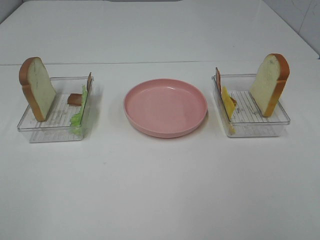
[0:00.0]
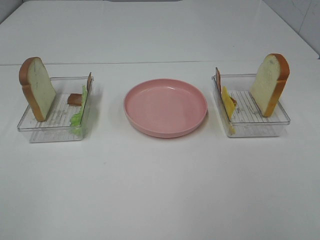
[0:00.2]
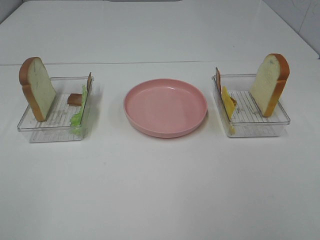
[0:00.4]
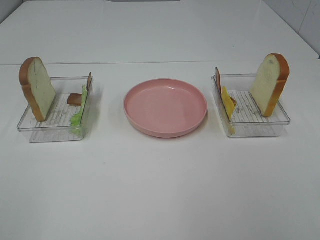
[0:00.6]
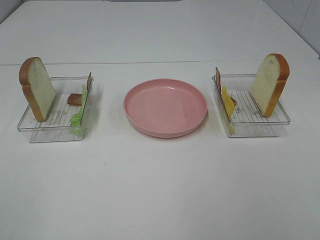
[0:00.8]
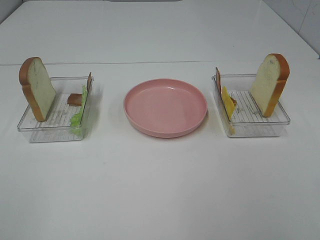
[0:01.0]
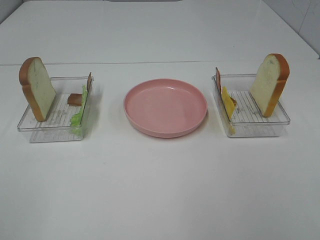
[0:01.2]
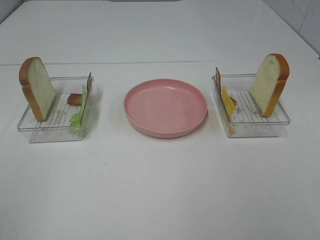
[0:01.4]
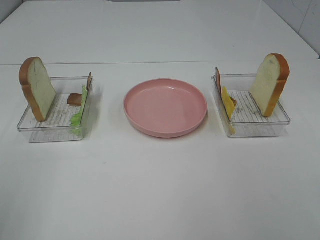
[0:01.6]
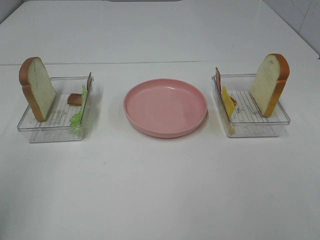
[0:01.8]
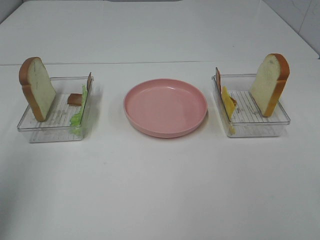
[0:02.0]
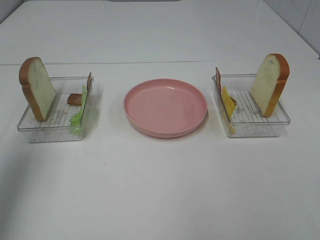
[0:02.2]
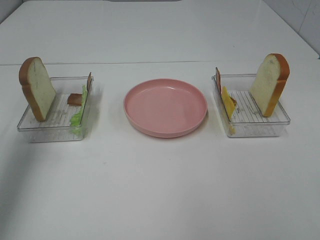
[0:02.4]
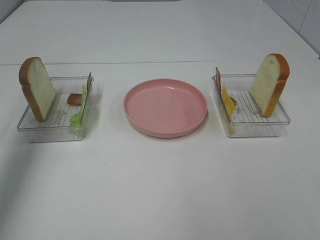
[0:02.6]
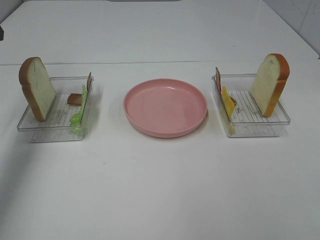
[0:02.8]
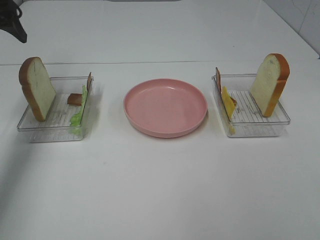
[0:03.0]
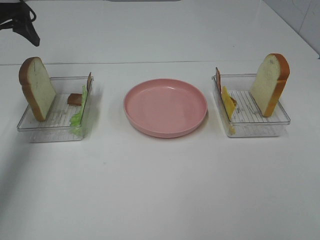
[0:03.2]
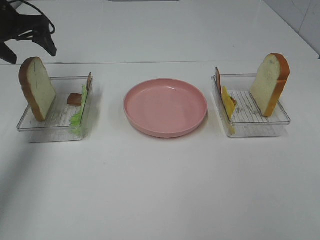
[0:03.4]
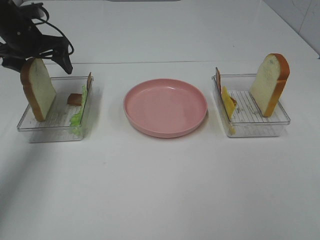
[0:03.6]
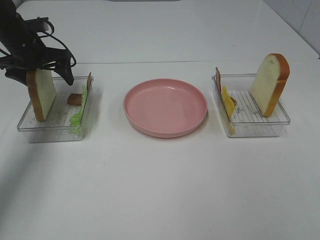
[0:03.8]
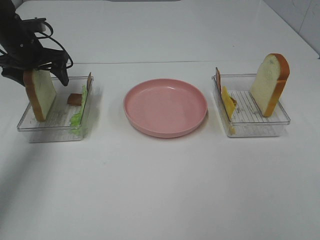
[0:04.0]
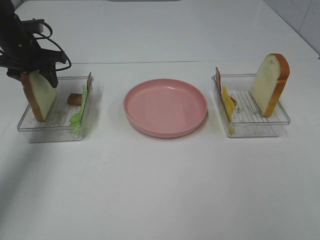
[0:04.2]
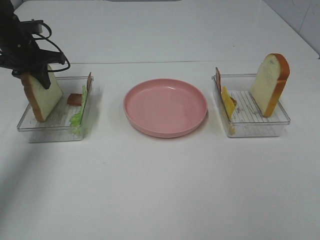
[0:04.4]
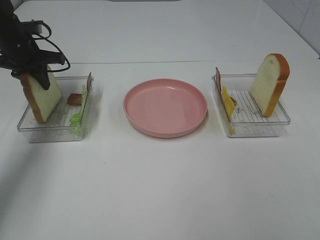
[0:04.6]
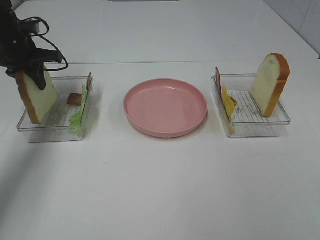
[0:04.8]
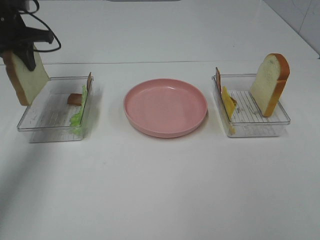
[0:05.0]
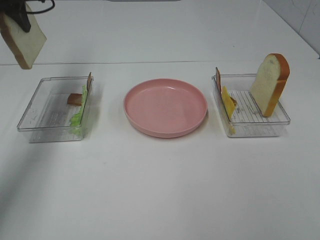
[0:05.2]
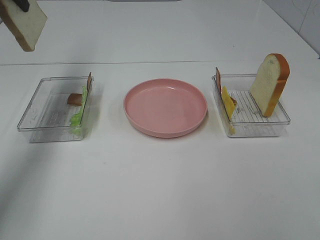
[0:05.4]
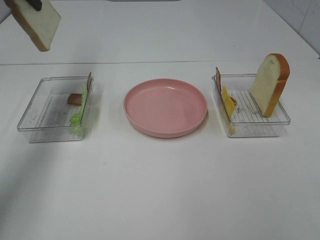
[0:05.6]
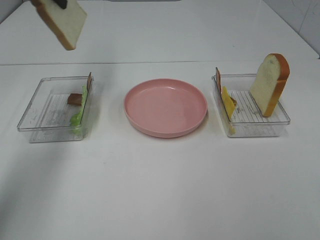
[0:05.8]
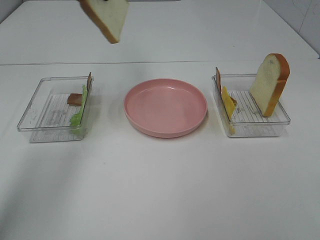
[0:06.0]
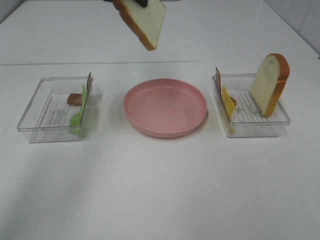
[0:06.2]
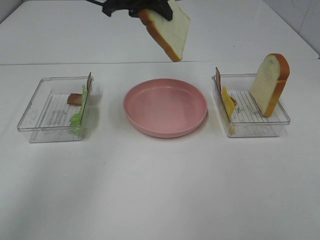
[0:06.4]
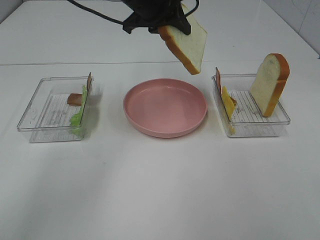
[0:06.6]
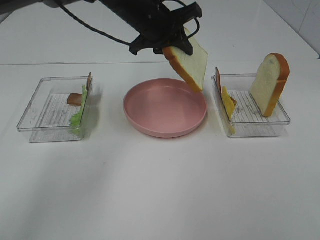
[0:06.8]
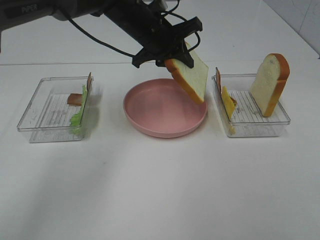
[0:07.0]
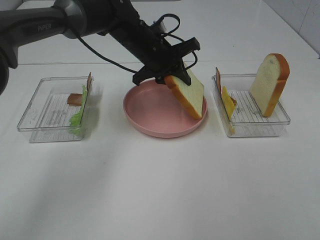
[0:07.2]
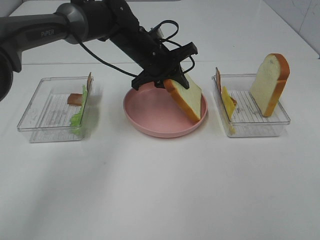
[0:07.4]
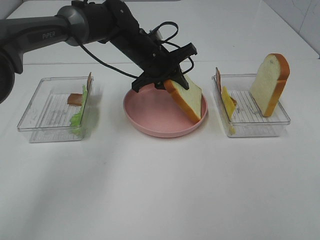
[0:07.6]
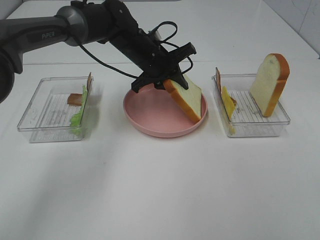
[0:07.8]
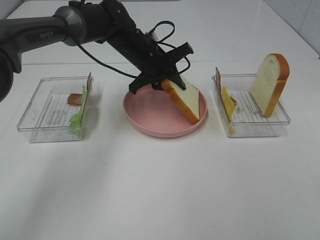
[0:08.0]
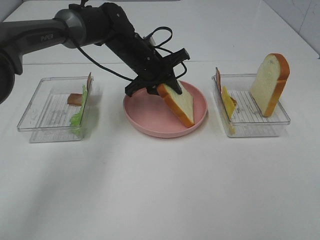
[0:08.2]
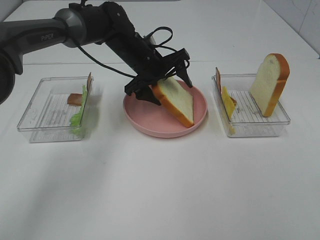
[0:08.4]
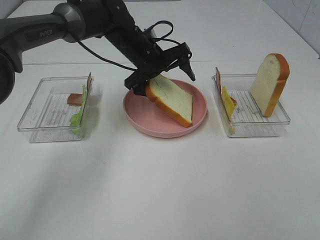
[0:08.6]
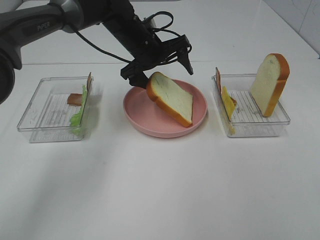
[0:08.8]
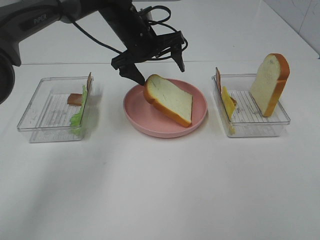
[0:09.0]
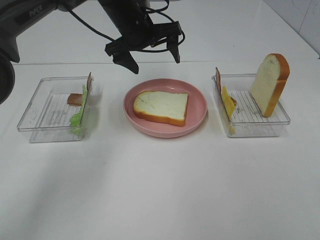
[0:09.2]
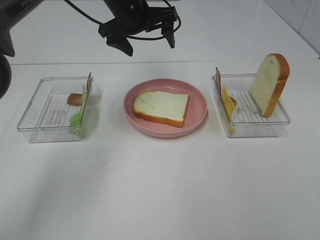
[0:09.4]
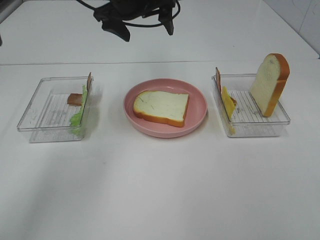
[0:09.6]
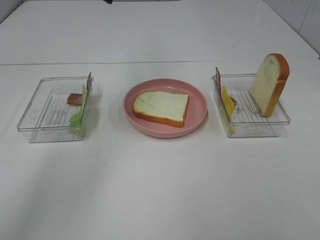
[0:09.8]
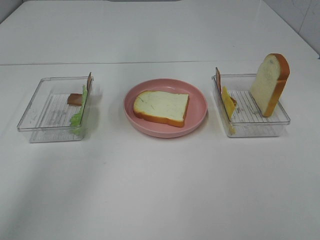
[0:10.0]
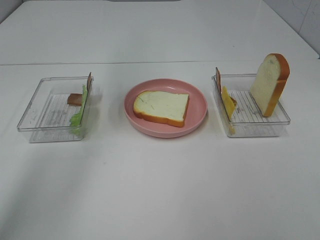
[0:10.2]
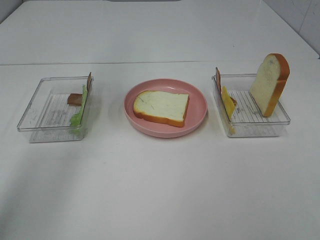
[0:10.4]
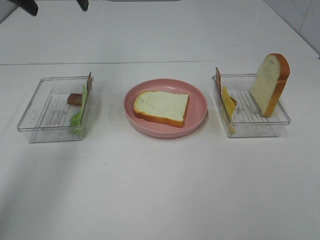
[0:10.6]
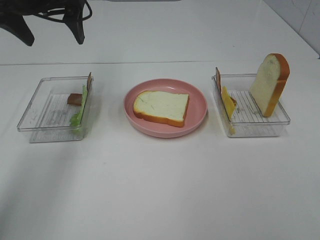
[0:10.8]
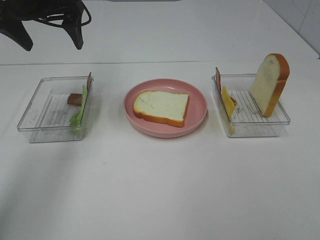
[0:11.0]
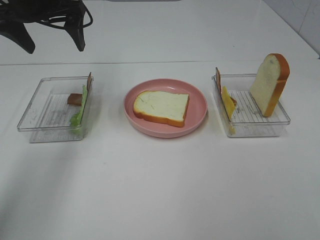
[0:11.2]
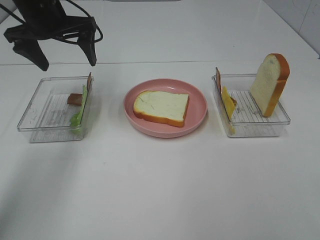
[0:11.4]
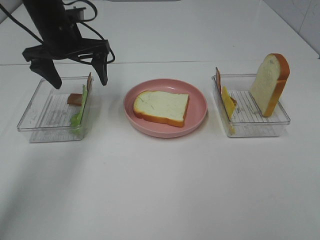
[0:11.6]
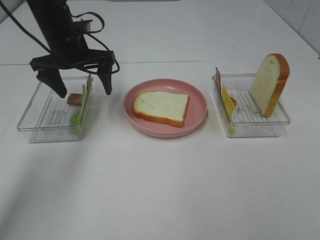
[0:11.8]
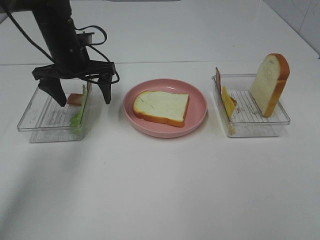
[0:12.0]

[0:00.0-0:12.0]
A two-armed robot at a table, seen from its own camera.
Task of the whole recording: Make sandwiches.
Step, 0:00.0 to 0:04.4: Left hand:grab the bread slice.
Step, 0:04.6 to 0:09.4: Left hand:place the bread slice on the plate.
0:01.6 to 0:03.0: The left gripper heads forward, covering approximately 35 cm.
0:03.0 to 0:04.4: The left gripper travels downward and forward by some 15 cm, and closes.
0:04.4 to 0:06.0: The left gripper shifts about 20 cm upward and to the right.
0:06.0 to 0:07.6: The left gripper shifts roughly 25 cm downward and to the right.
0:07.6 to 0:09.0: The left gripper moves roughly 5 cm, and opens its fingers.
0:09.0 to 0:10.4: The left gripper moves upward and to the left, some 25 cm.
0:10.4 to 0:12.0: The left gripper heads downward, covering some 20 cm.

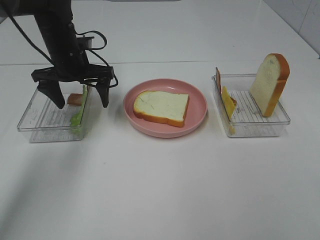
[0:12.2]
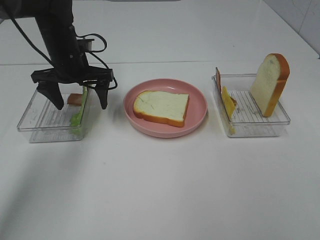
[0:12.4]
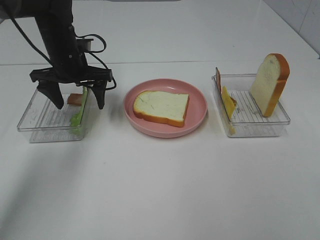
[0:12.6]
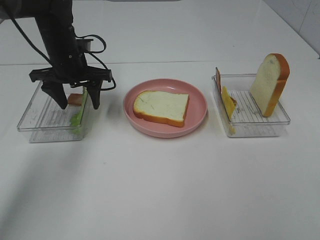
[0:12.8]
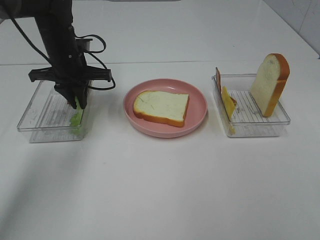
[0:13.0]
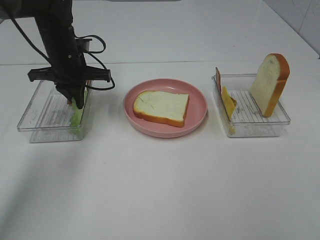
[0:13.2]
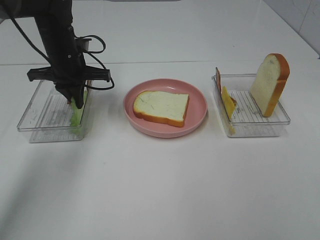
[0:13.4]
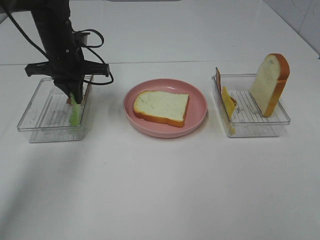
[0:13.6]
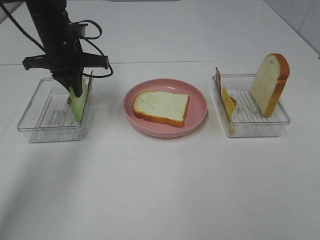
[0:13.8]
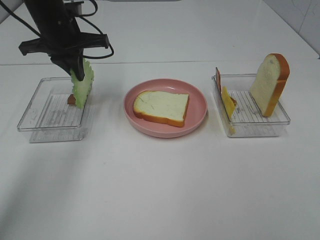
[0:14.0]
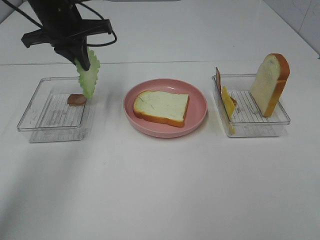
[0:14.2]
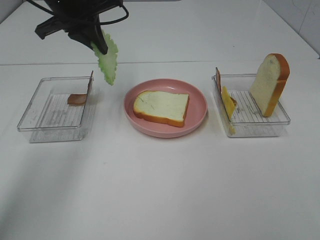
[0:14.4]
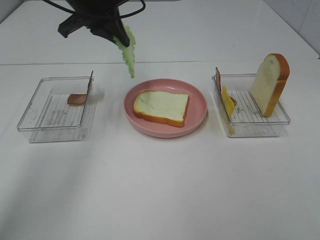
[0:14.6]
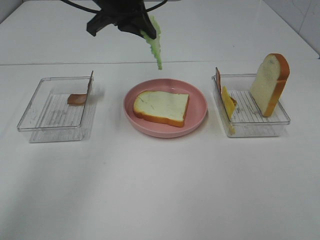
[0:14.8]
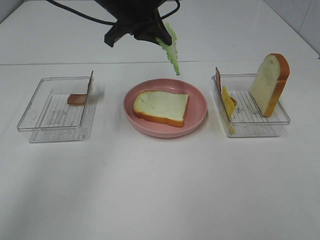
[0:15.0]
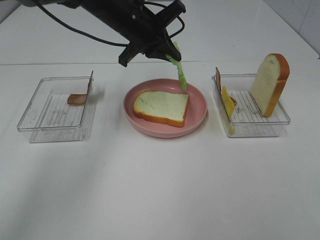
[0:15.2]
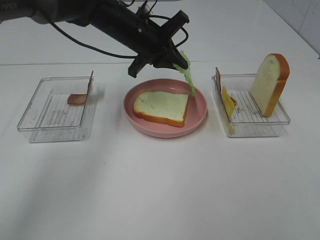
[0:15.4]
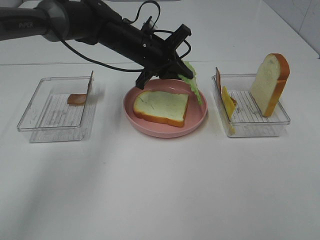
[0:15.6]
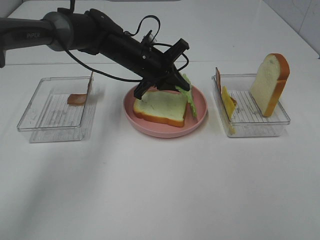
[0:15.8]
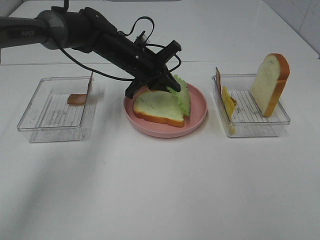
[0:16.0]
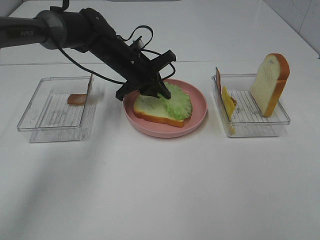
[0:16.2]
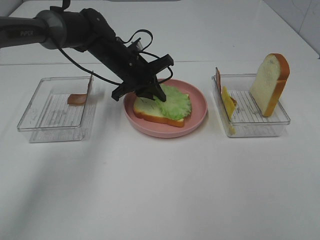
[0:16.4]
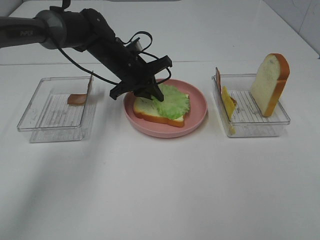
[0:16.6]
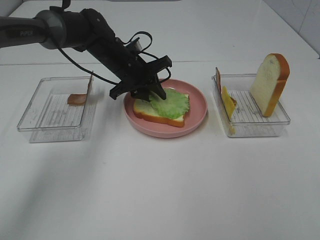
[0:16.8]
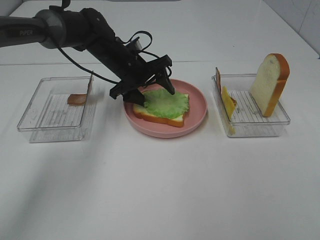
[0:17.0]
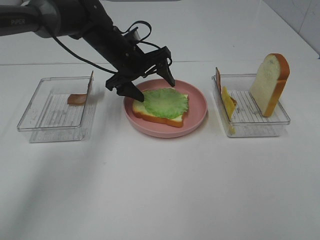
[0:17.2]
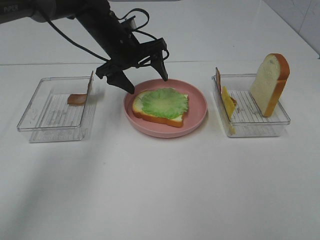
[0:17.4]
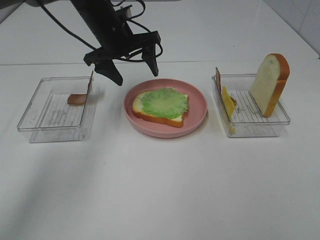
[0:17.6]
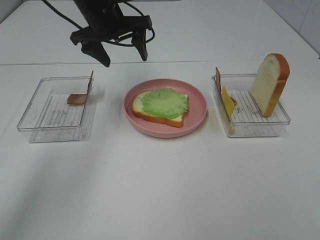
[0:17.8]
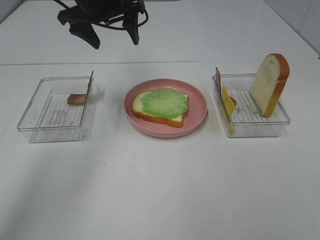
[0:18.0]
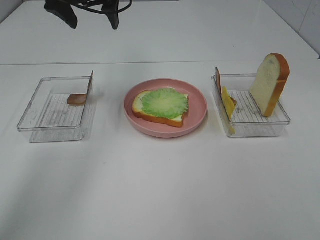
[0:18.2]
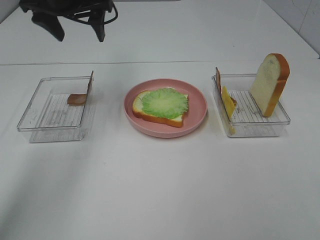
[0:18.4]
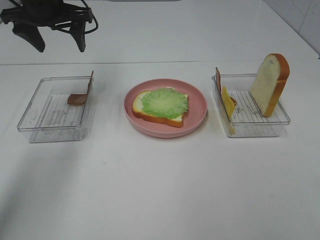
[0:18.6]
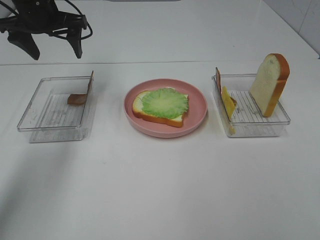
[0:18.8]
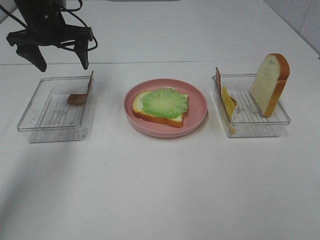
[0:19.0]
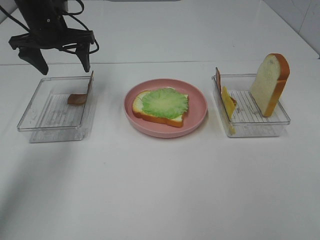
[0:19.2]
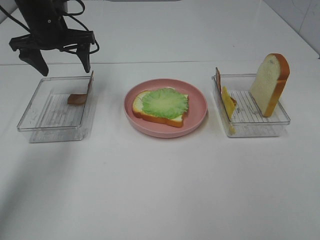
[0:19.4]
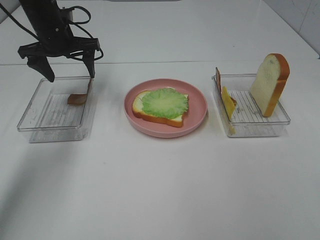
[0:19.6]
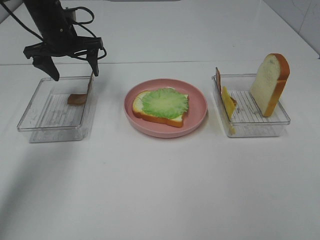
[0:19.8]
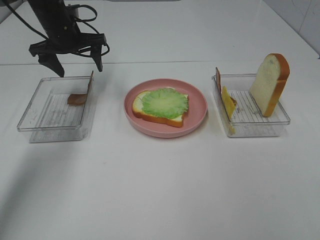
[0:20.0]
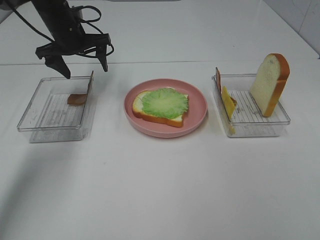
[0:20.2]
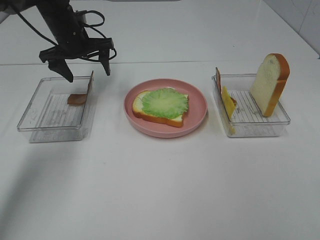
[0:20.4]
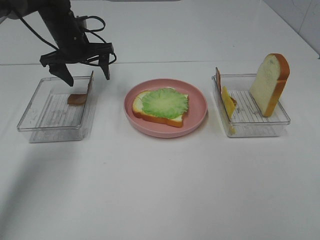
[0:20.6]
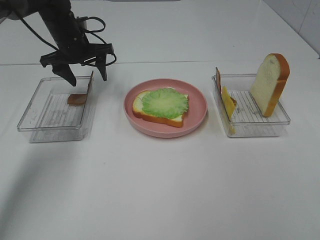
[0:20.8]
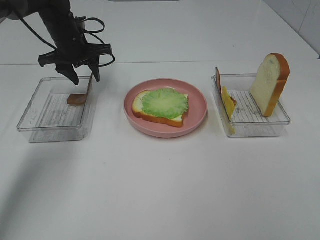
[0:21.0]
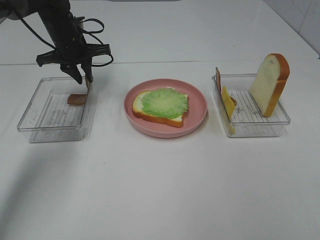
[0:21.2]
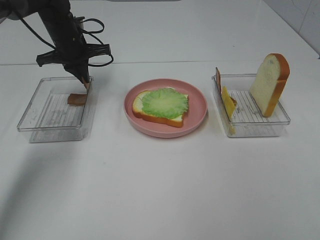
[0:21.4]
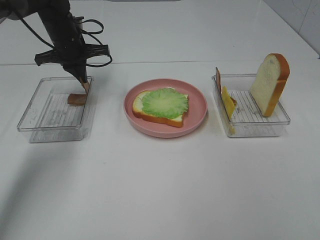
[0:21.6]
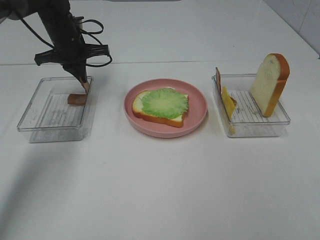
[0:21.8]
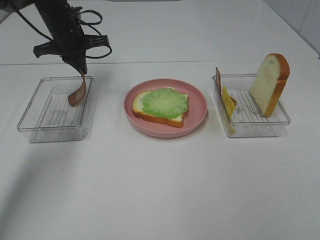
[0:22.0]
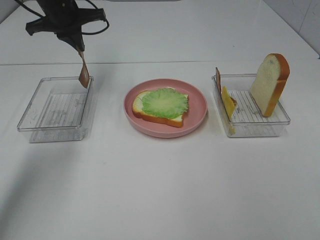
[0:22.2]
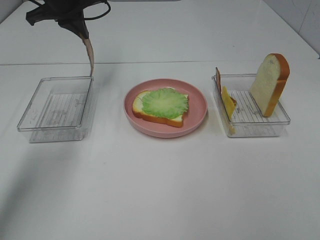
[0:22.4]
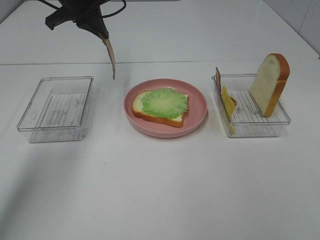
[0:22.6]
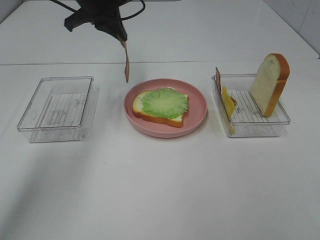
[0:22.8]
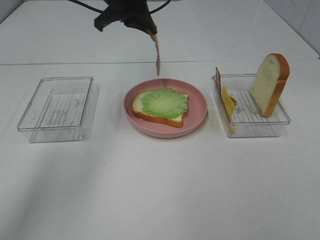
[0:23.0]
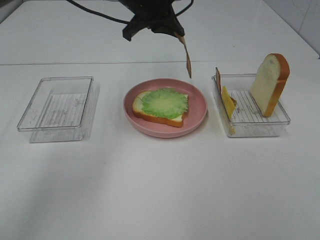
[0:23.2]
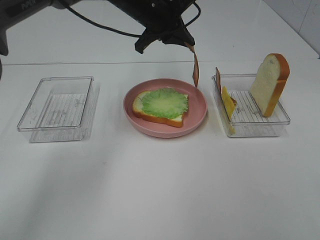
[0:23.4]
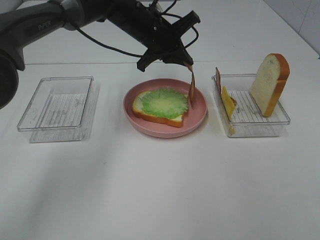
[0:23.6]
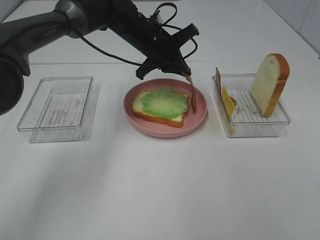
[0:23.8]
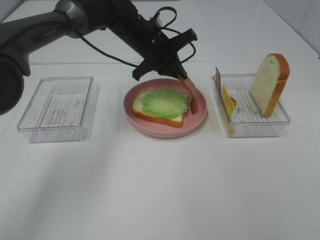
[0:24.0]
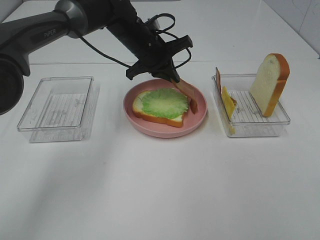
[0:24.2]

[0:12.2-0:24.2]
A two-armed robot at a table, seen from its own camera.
Task of the whole recording: Make sandwiches.
Step, 0:13.8 to 0:17.2: Left hand:place the lettuce slice on the bread slice.
Step, 0:17.4 to 0:21.4: Left hand:grab the bacon.
0:12.2 to 0:13.8: The left gripper closes.
0:13.8 to 0:15.2: The left gripper travels to the right by some 10 cm.
0:15.2 to 0:16.6: The left gripper moves downward, approximately 10 cm.
0:16.6 to 0:18.2: The left gripper goes roughly 20 cm upward, and opens up.
0:18.2 to 0:19.8: The left gripper shifts approximately 15 cm downward and to the left.
0:19.8 to 0:21.2: The left gripper closes its fingers.
0:21.2 to 0:22.6: The left gripper heads upward, covering roughly 10 cm.
0:22.6 to 0:24.2: The left gripper heads to the right and downward, covering roughly 15 cm.
